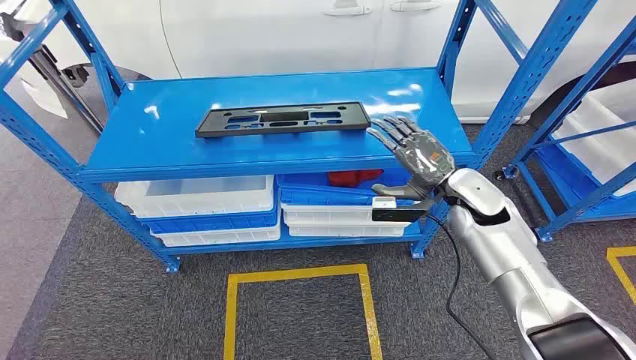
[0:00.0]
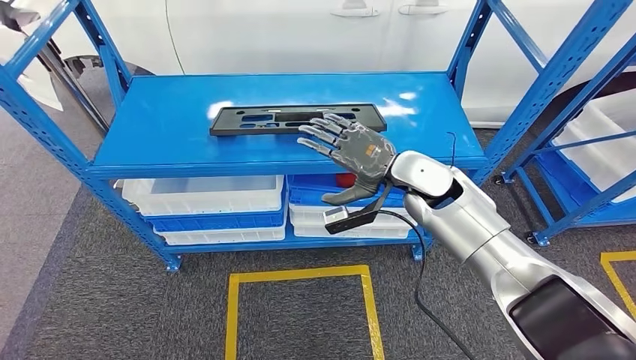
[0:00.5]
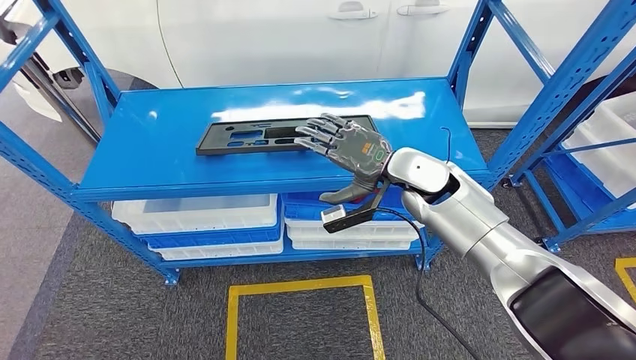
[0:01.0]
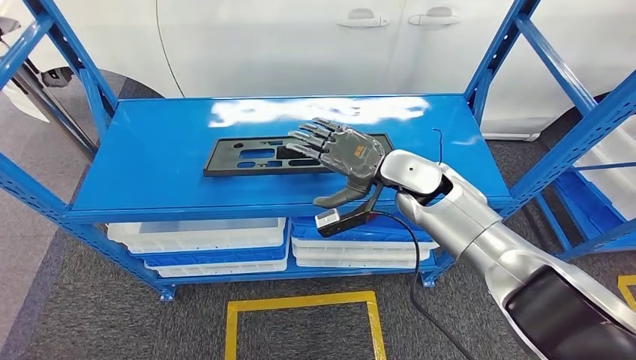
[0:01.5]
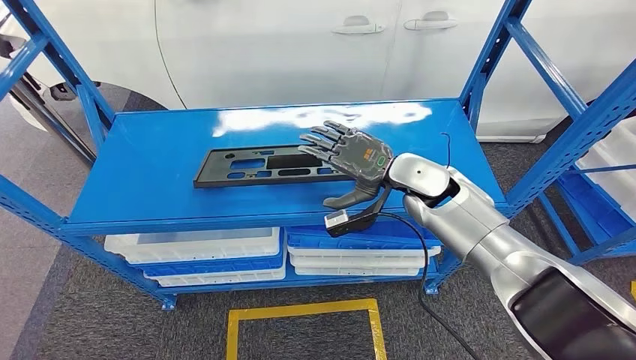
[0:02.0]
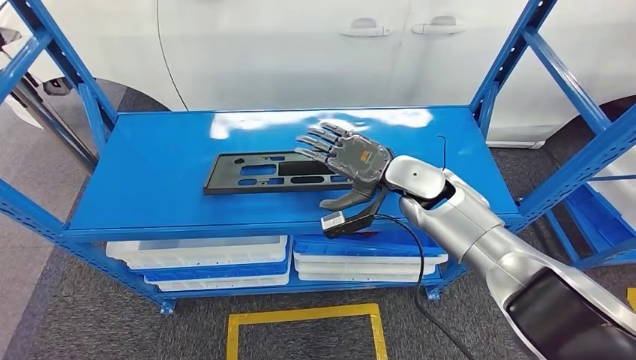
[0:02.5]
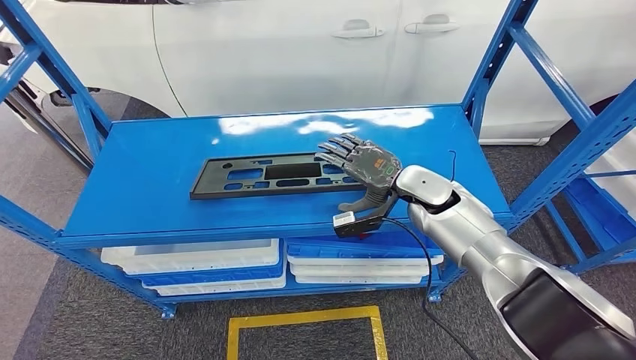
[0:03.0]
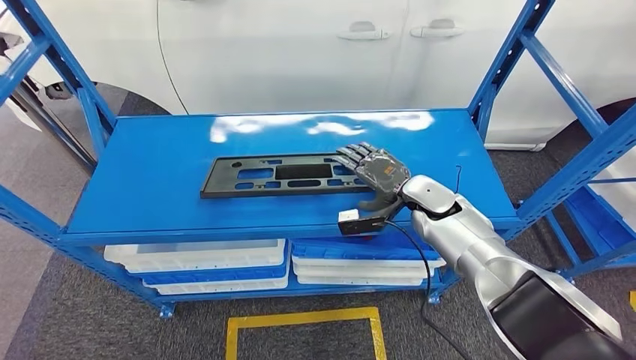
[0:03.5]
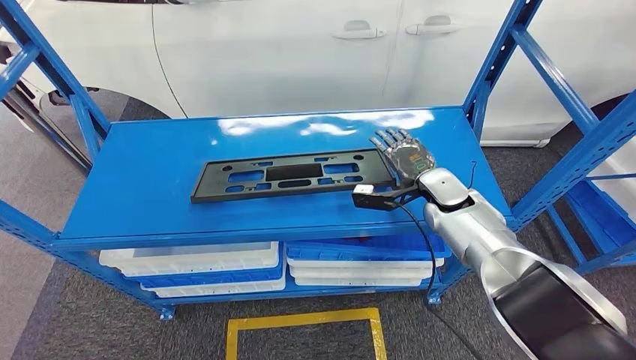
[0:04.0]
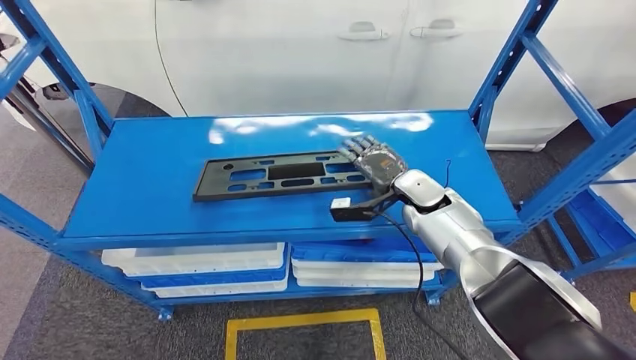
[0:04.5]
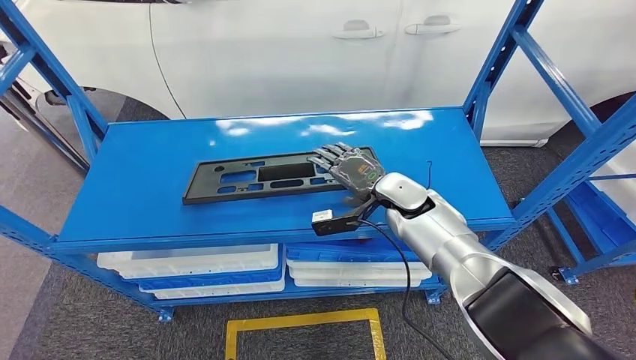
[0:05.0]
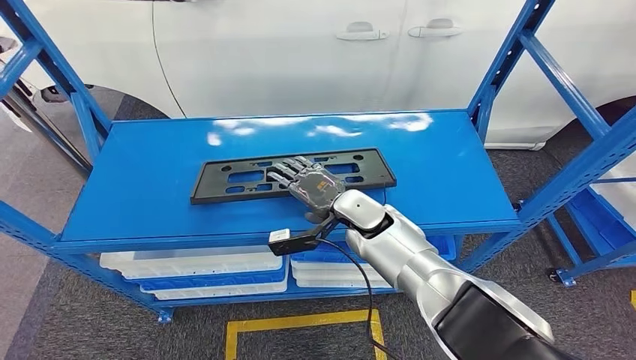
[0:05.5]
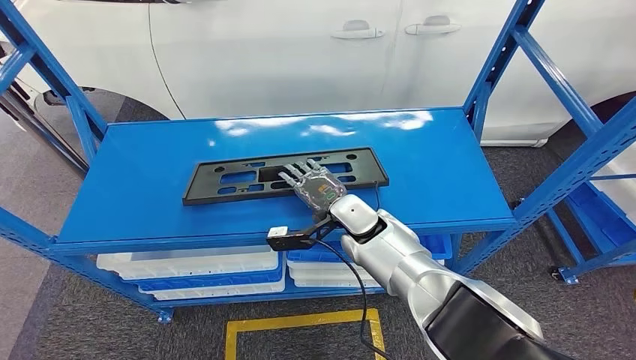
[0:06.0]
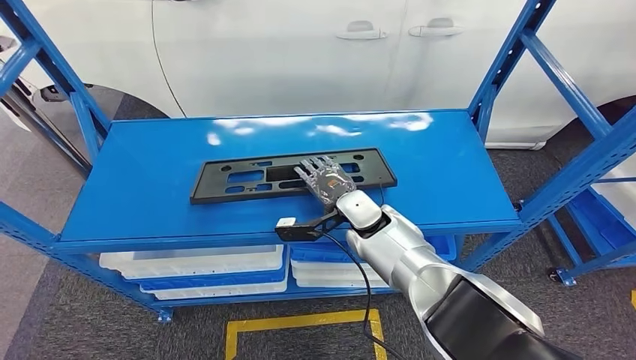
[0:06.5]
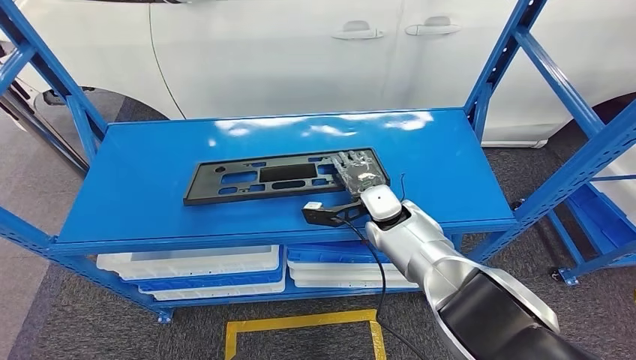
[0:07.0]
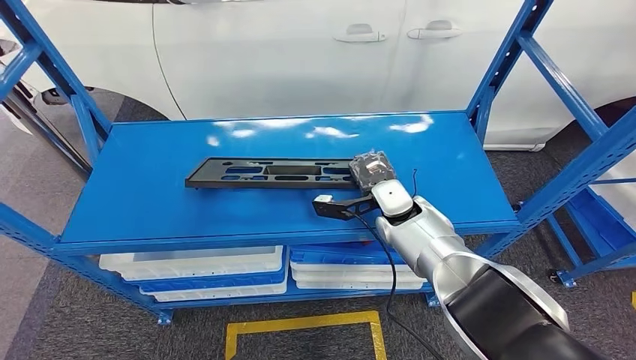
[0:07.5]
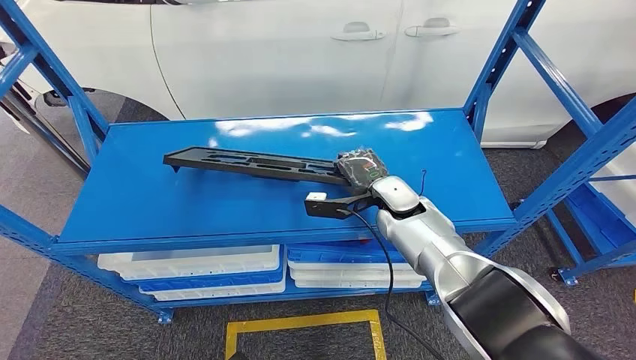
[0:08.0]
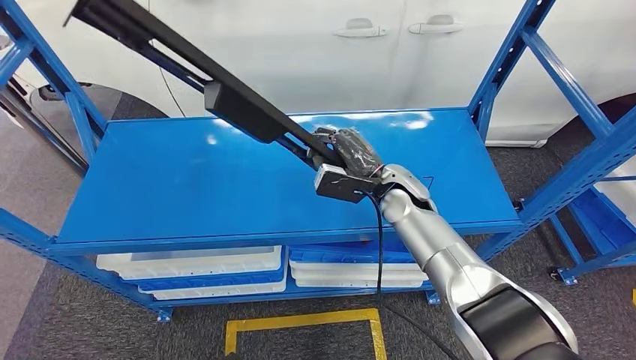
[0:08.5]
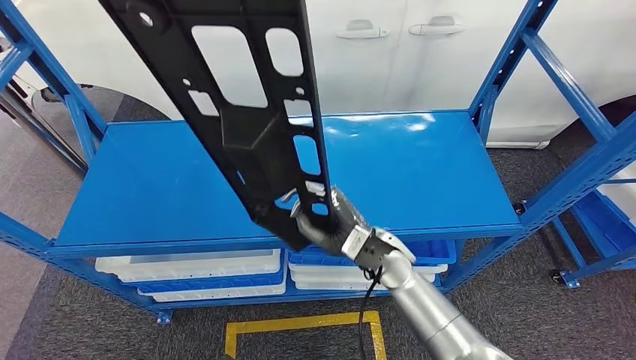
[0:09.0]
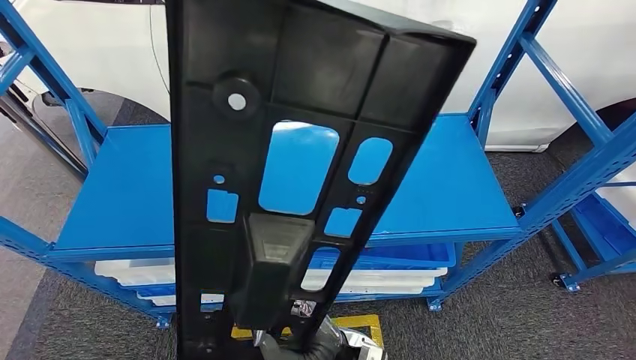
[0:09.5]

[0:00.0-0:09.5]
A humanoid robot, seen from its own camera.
Step, 0:00.0 to 0:09.5: Pick up the large material from the shelf.
0:05.5 to 0:07.5: The right hand travels to the right by roughly 5 cm.

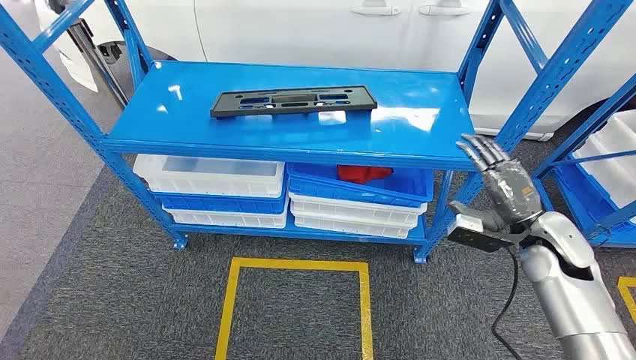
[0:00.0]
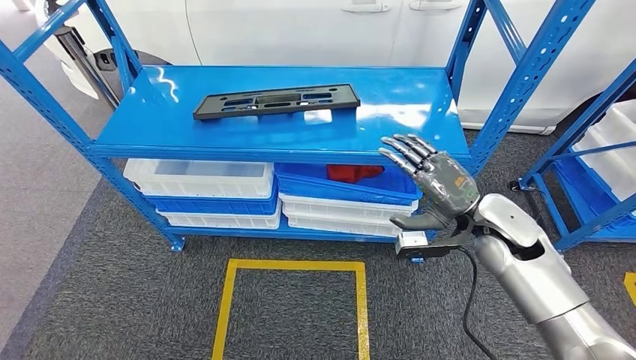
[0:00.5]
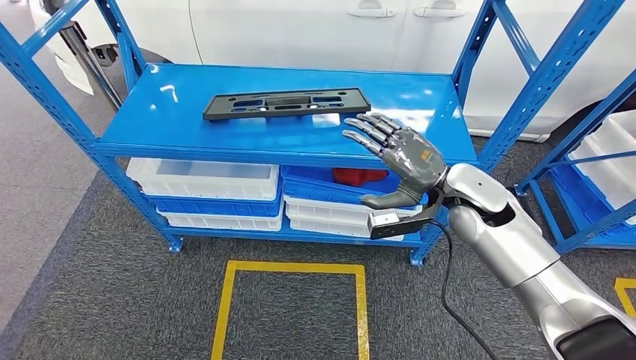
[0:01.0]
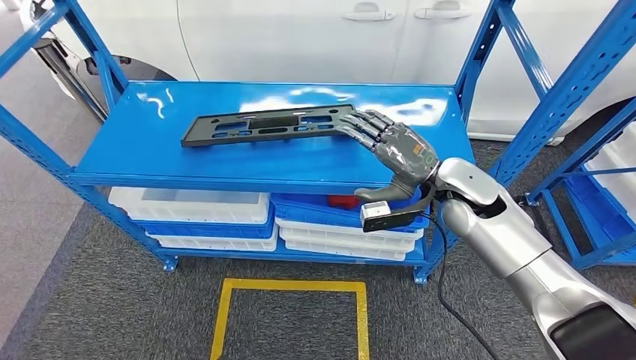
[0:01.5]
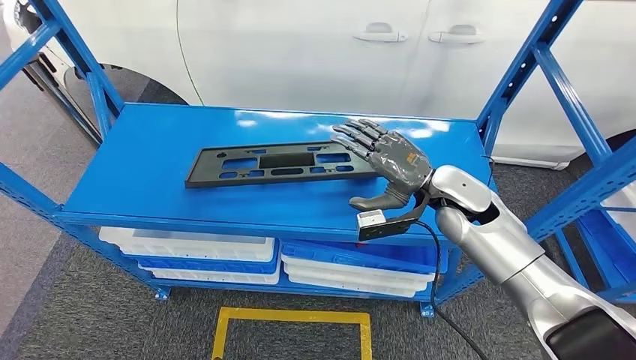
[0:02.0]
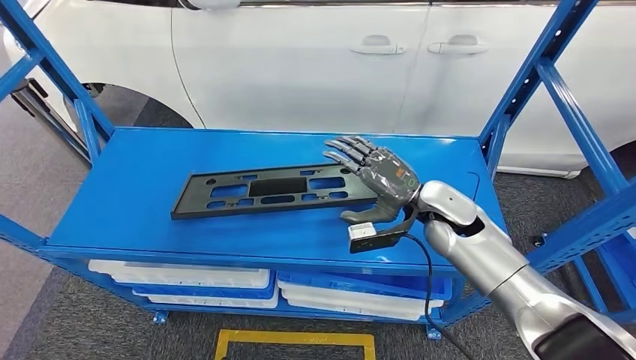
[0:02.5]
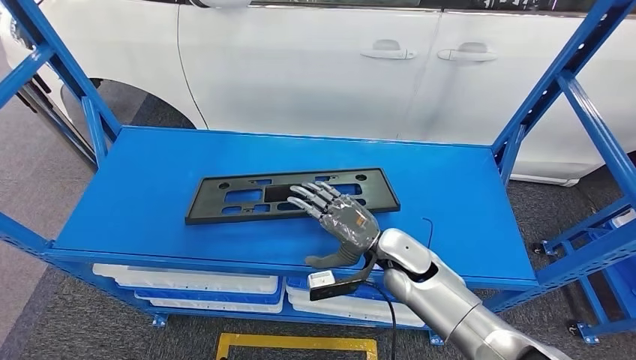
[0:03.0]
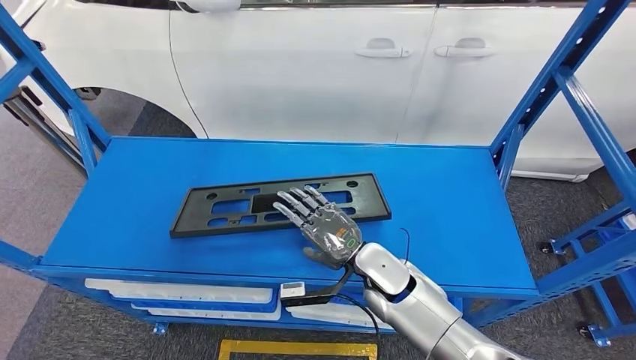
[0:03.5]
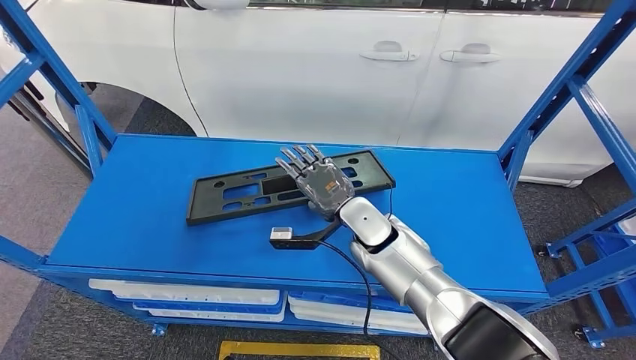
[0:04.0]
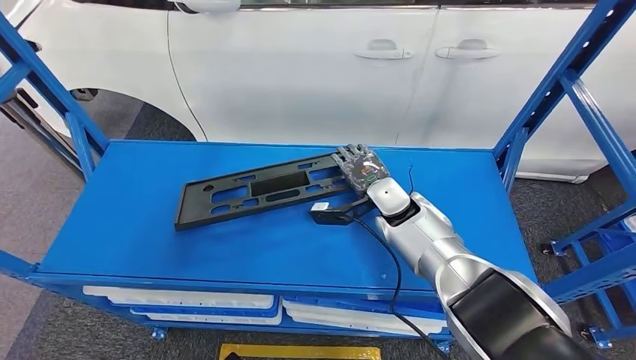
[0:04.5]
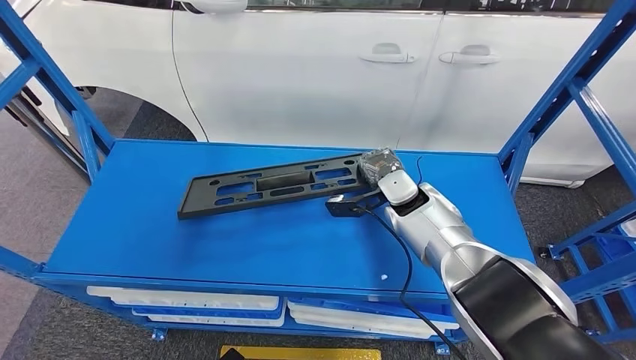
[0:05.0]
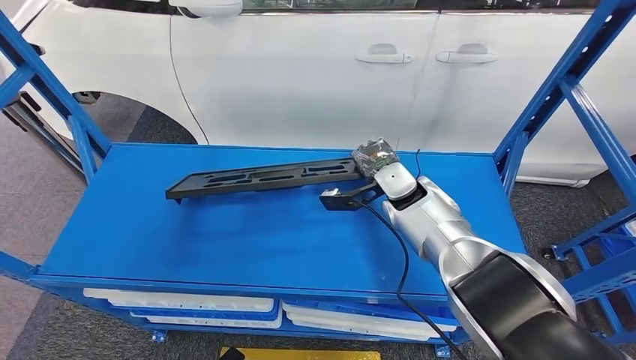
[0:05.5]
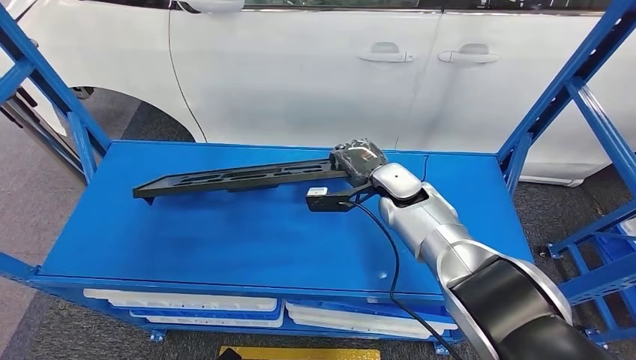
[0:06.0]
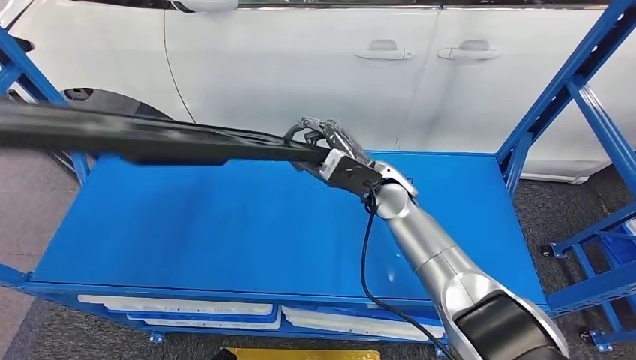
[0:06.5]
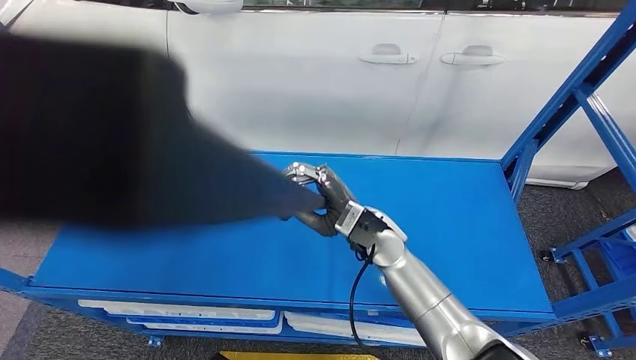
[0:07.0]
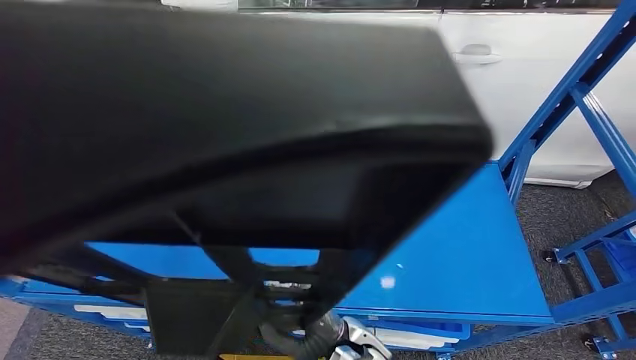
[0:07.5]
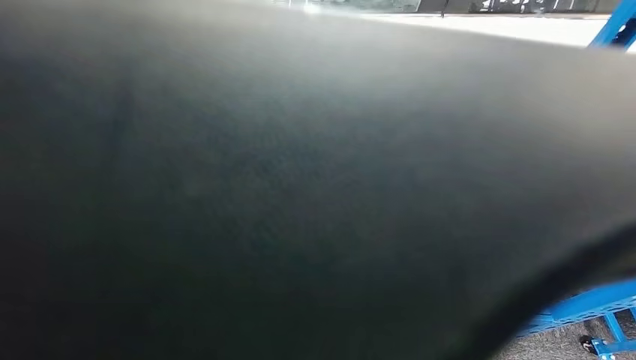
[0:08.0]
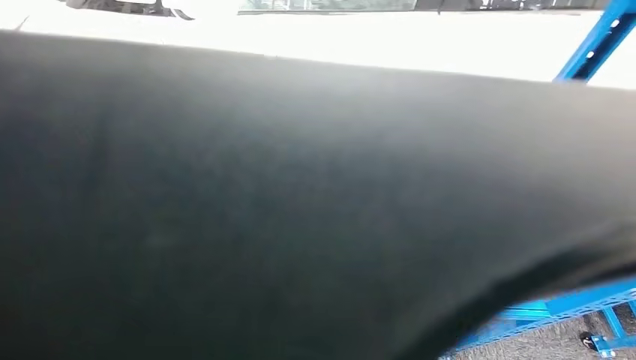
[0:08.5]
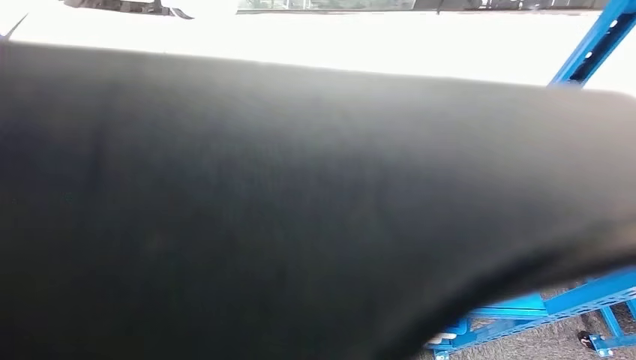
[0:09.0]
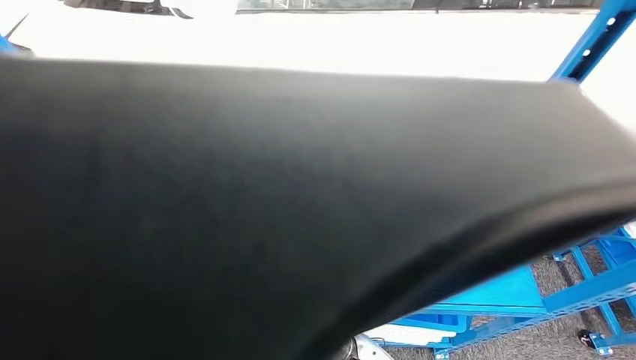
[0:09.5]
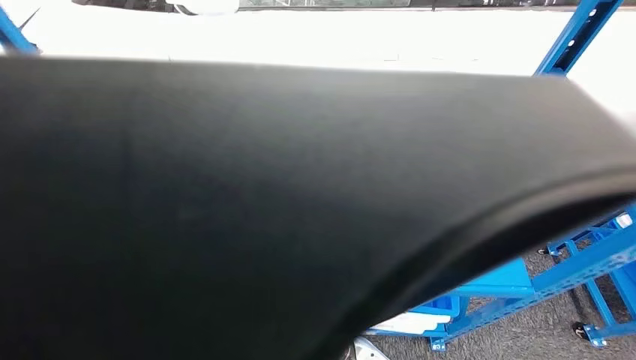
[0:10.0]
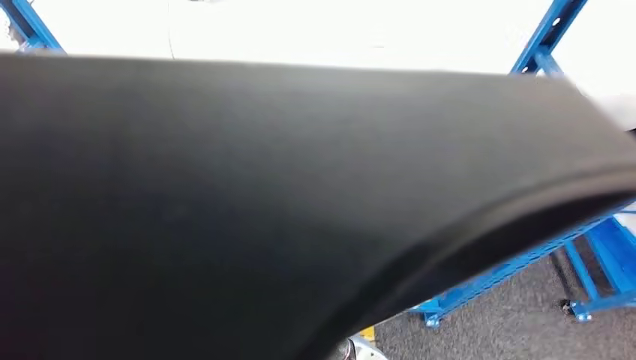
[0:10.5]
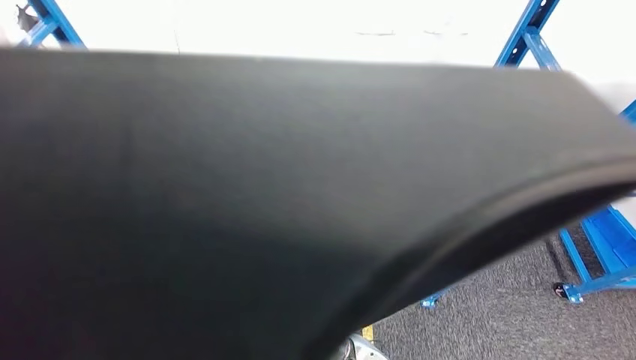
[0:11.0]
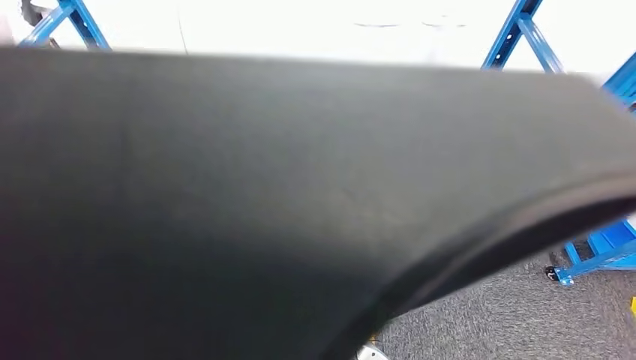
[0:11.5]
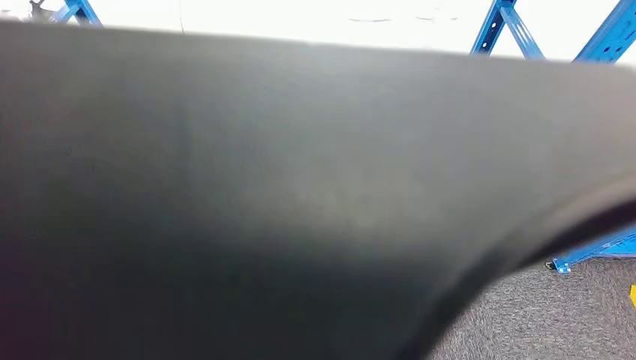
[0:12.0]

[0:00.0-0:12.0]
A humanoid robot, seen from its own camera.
Step, 0:00.0 to 0:08.0: Pick up the large material from the shelf.
